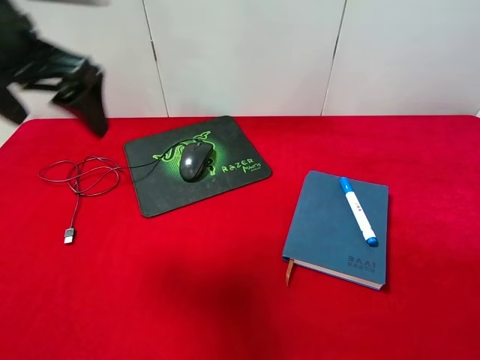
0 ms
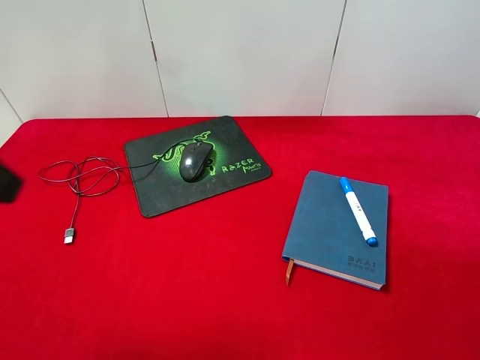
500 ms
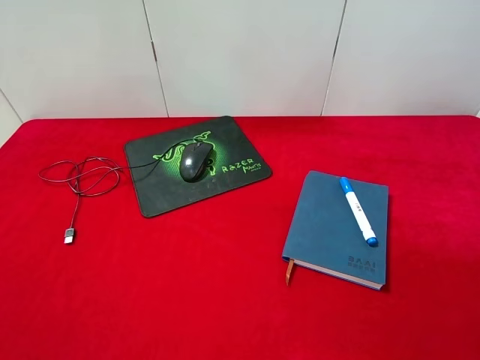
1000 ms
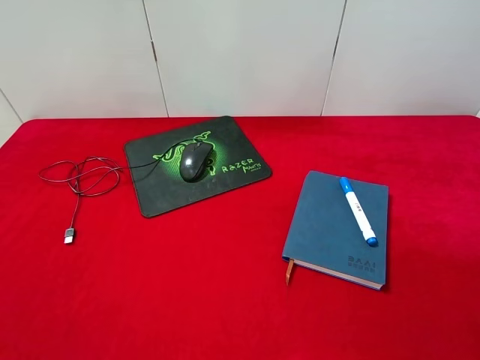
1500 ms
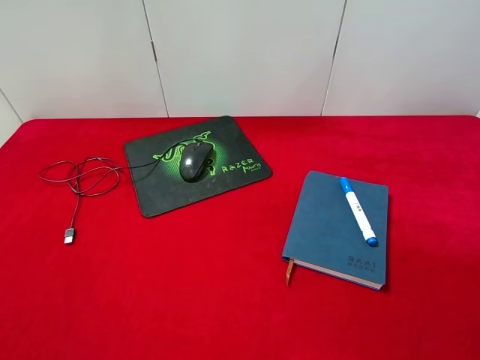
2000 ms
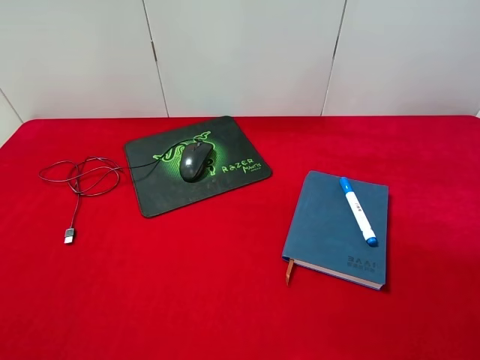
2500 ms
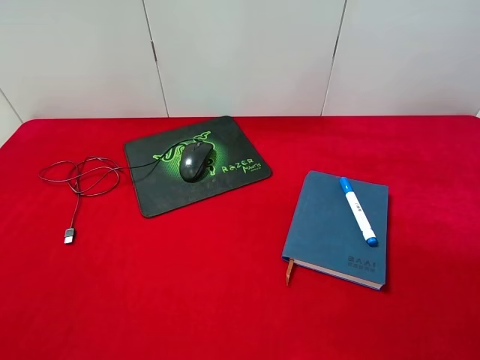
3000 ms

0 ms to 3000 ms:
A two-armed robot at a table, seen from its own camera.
0 ms to 1500 ms: The left gripper is displaced backward and to the left by some 25 cm.
